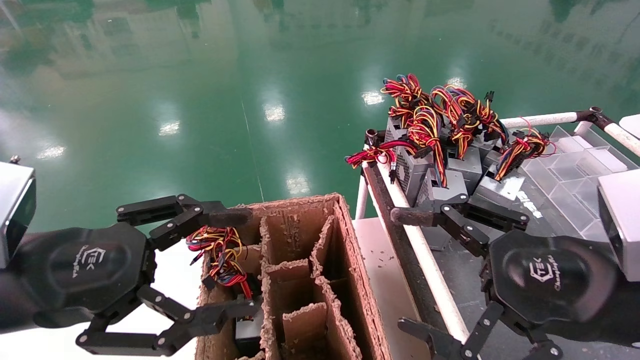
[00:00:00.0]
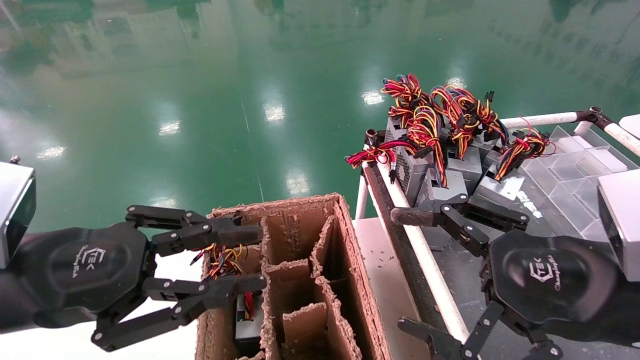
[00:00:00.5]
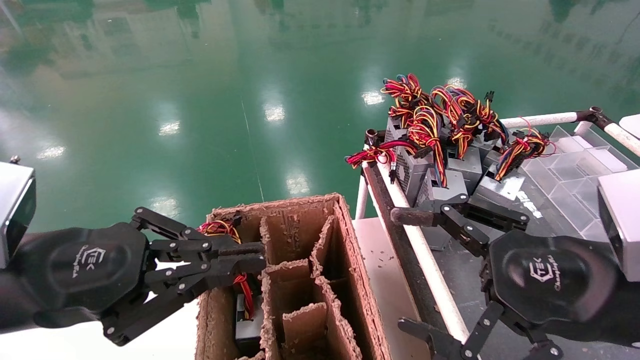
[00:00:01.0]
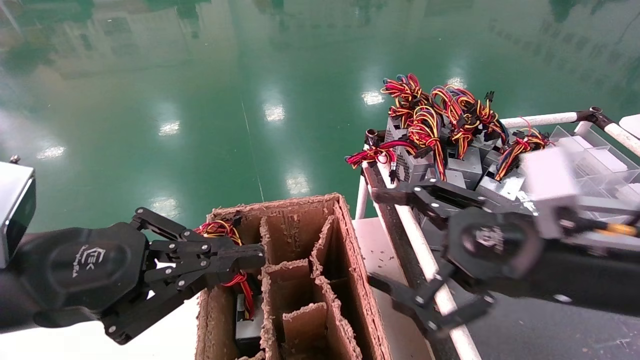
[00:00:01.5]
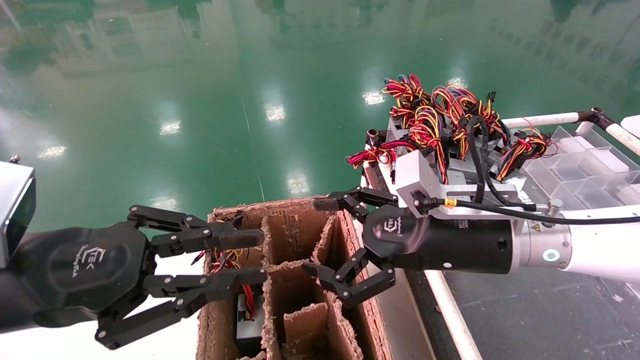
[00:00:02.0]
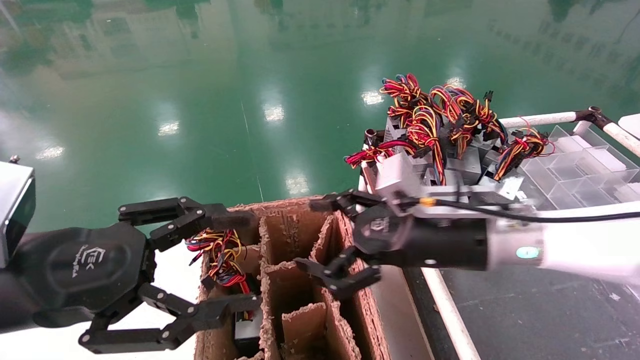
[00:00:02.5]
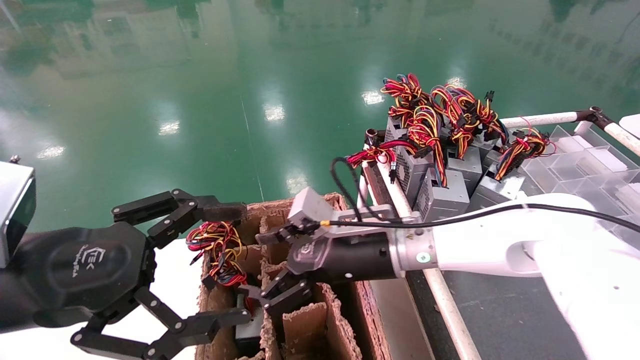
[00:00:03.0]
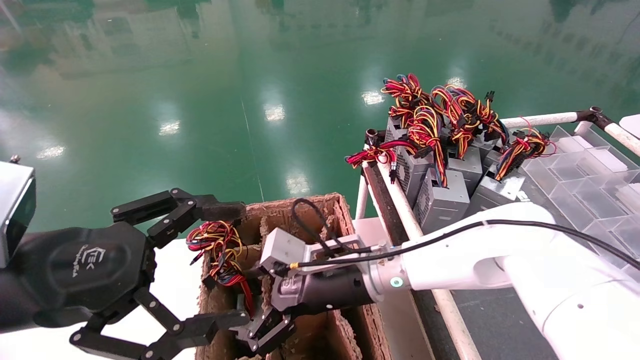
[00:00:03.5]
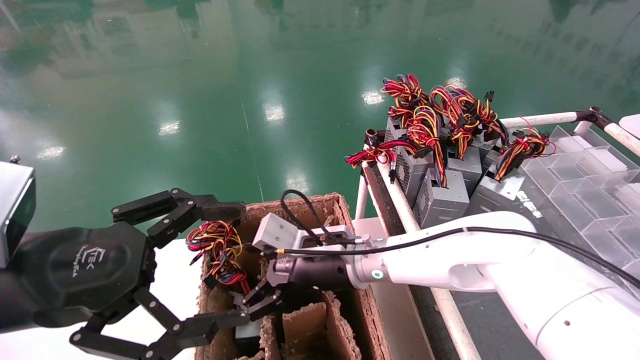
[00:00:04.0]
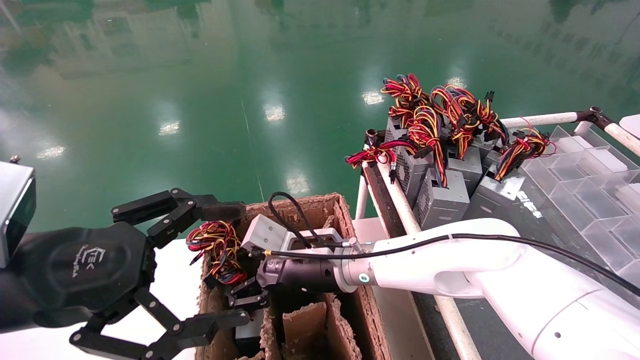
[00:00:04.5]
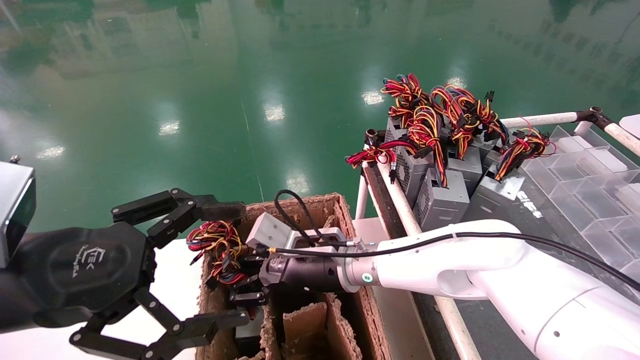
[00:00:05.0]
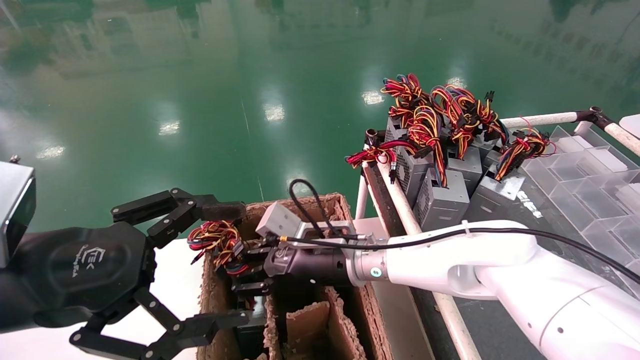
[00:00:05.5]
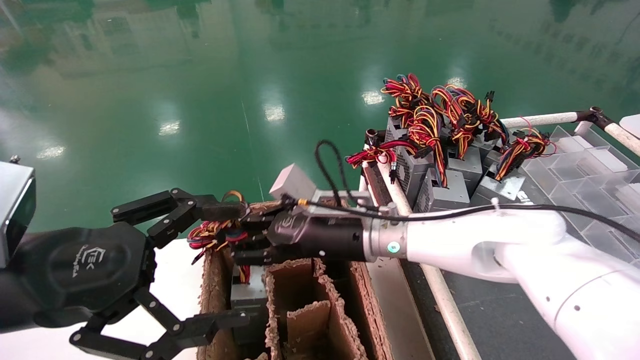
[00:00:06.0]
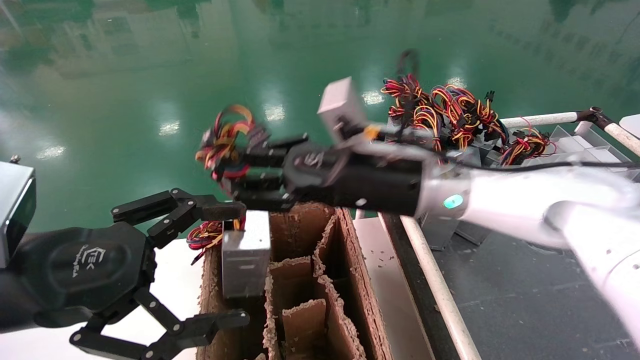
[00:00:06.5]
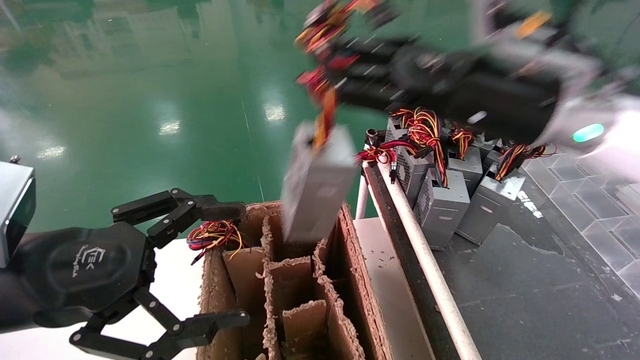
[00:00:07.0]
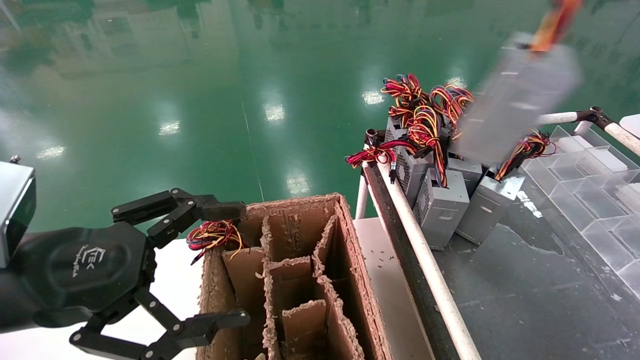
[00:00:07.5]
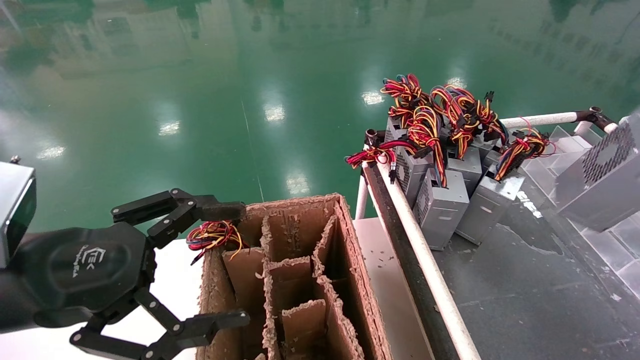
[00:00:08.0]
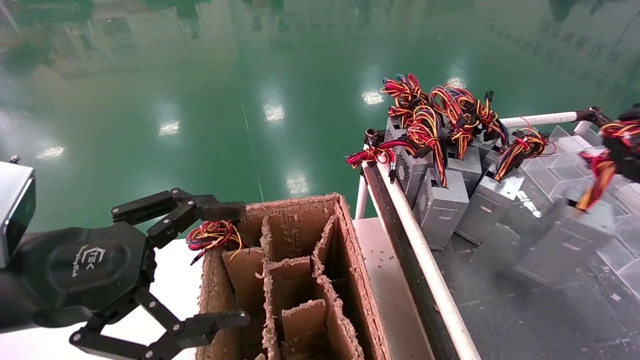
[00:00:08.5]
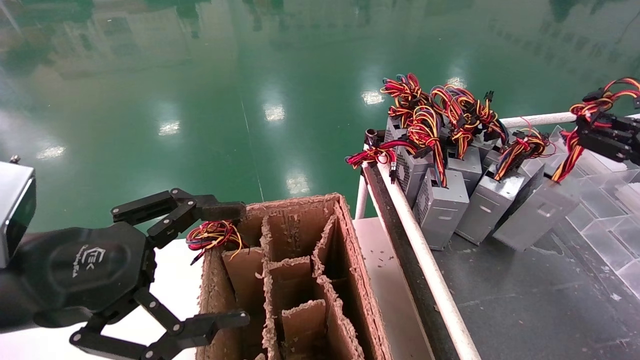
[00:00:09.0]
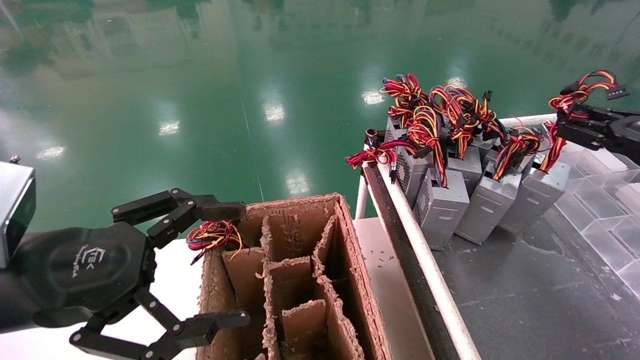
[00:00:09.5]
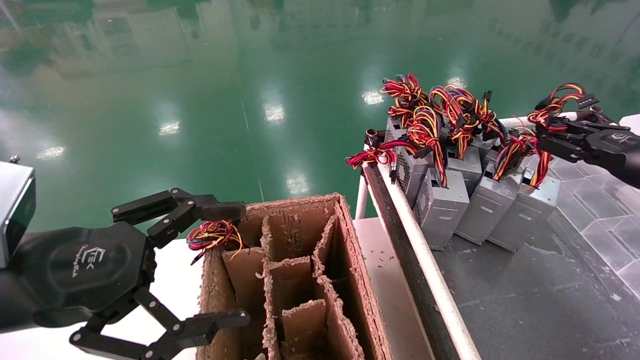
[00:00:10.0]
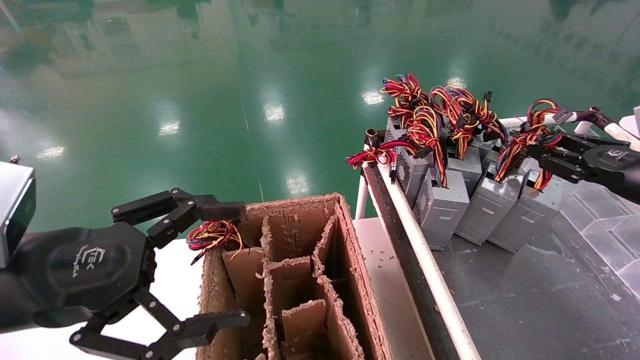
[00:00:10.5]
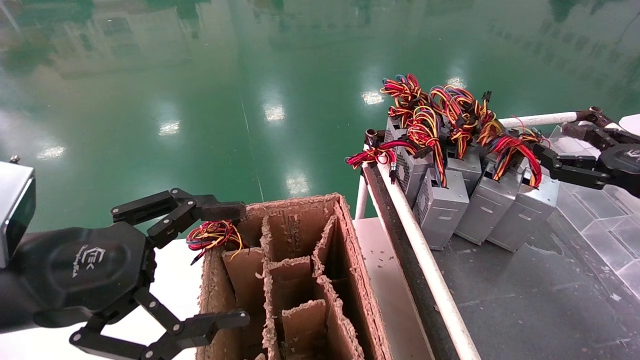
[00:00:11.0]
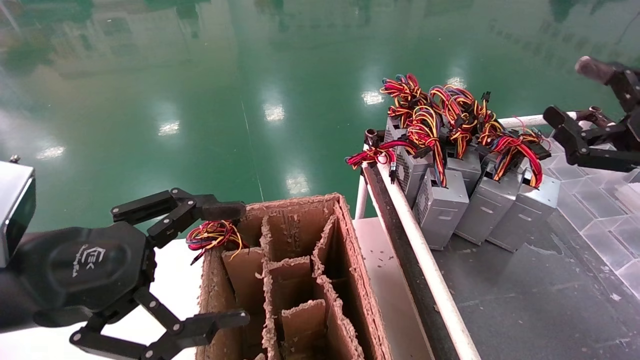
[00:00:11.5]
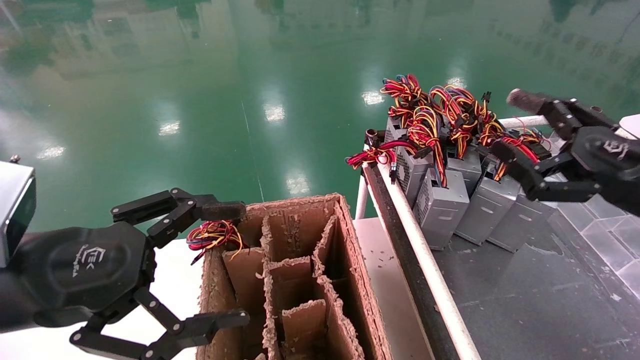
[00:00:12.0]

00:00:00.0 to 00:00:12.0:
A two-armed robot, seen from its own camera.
Step, 00:00:01.5 to 00:00:05.5: Grab and lift the power supply from the large box.
Step, 00:00:06.0 to 00:00:10.5: Place the power supply on the operating table.
00:00:00.0 to 00:00:02.0: The left gripper closes. The right gripper moves forward and to the left, some 15 cm.
00:00:02.0 to 00:00:04.0: The left gripper opens, while the right gripper shifts approximately 20 cm to the left, downward and forward.
00:00:04.0 to 00:00:06.0: The right gripper goes some 5 cm upward, and closes up.
00:00:06.0 to 00:00:08.0: The right gripper is displaced to the right by some 50 cm.
00:00:08.0 to 00:00:10.0: The right gripper goes roughly 15 cm forward and downward.
00:00:10.0 to 00:00:12.0: The right gripper goes roughly 10 cm to the left and backward, and opens.

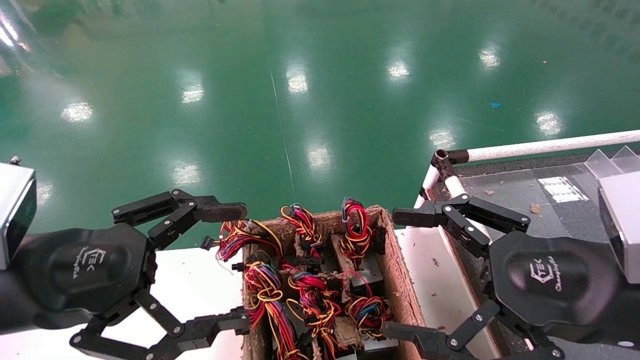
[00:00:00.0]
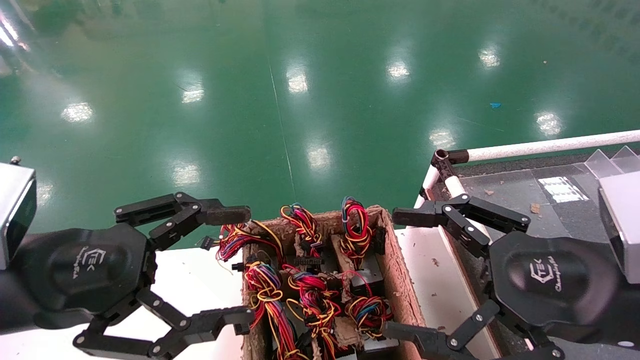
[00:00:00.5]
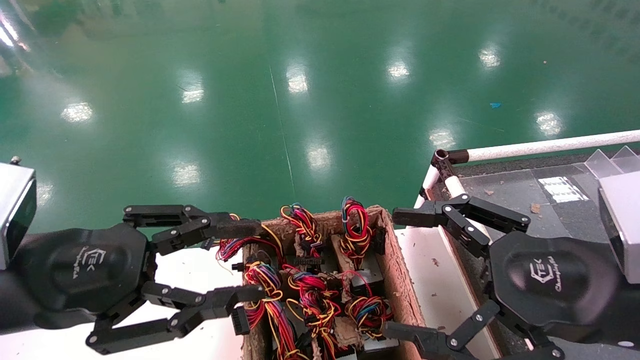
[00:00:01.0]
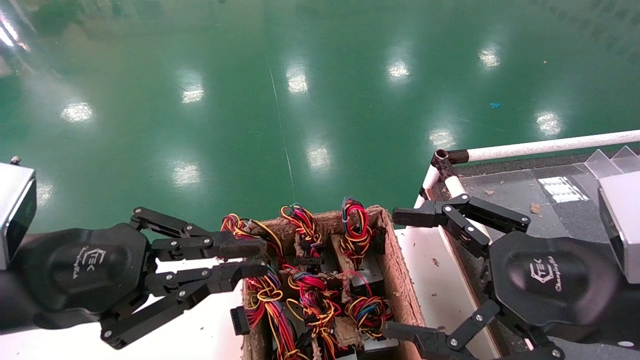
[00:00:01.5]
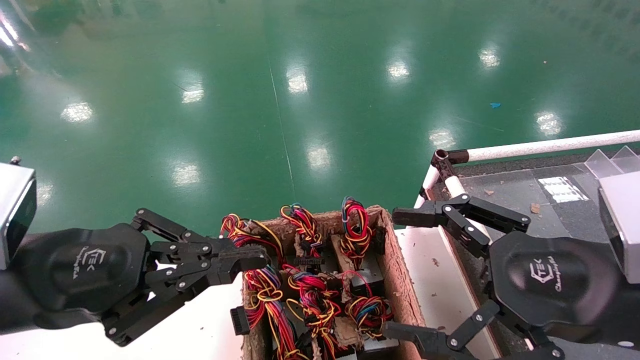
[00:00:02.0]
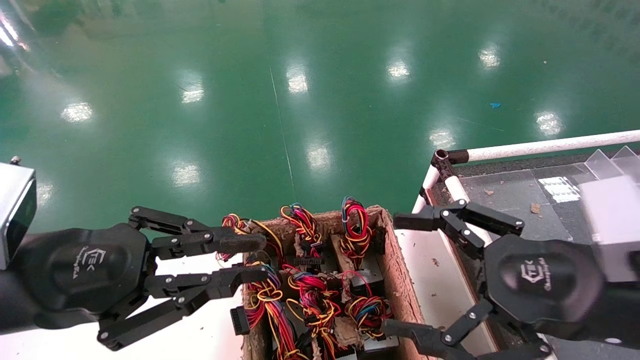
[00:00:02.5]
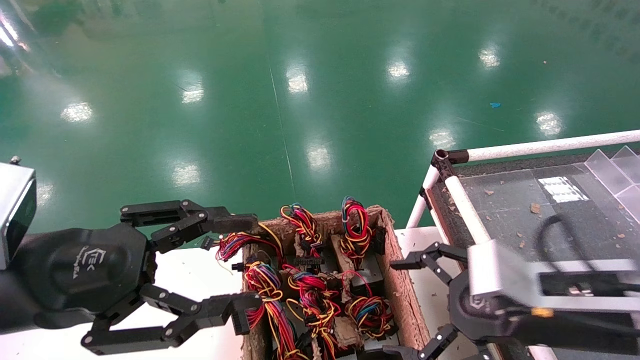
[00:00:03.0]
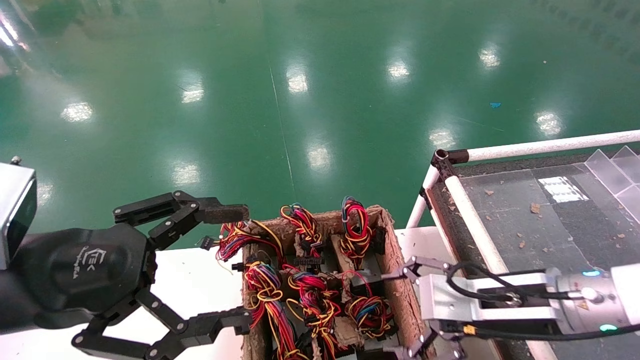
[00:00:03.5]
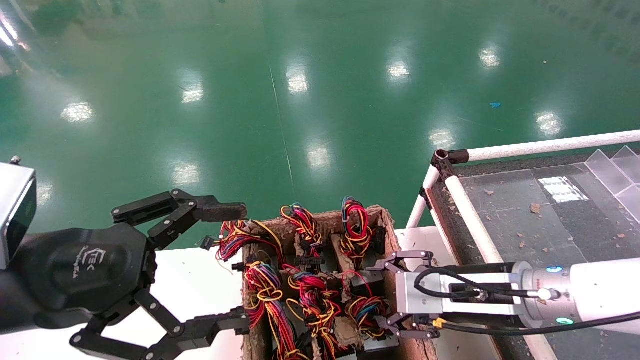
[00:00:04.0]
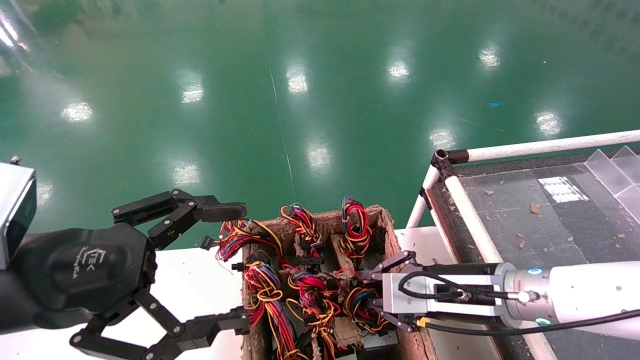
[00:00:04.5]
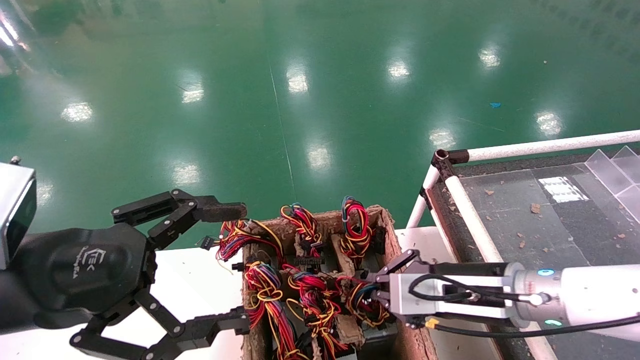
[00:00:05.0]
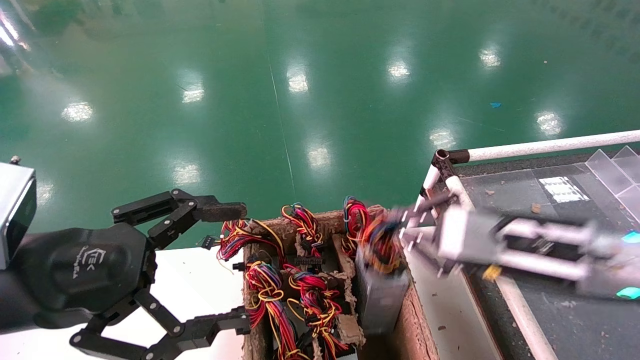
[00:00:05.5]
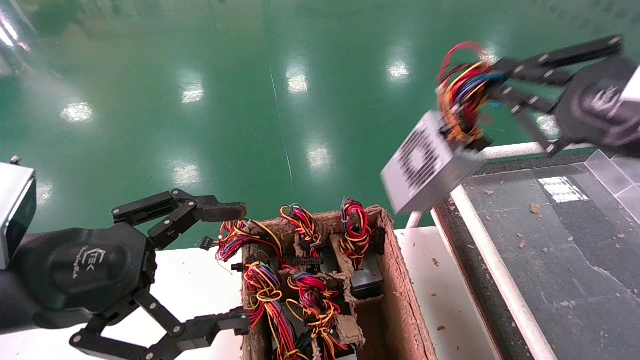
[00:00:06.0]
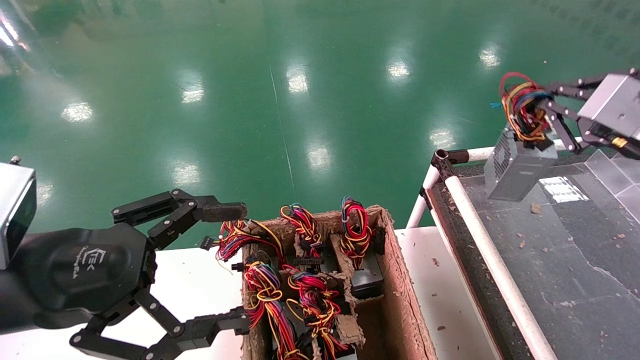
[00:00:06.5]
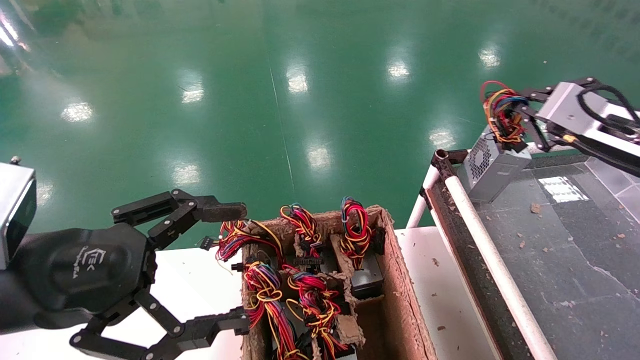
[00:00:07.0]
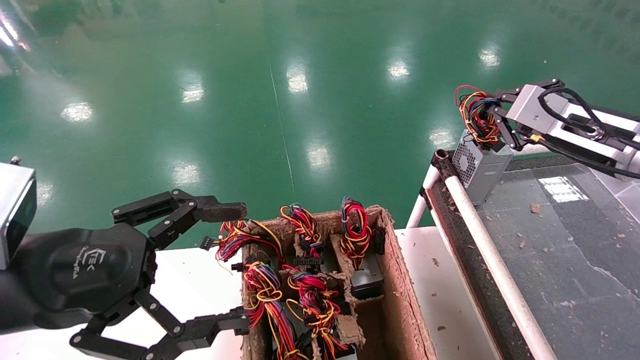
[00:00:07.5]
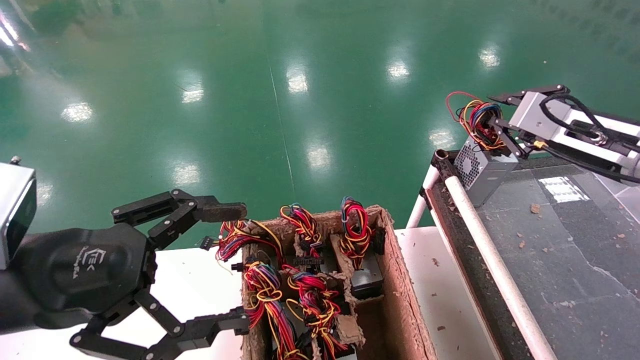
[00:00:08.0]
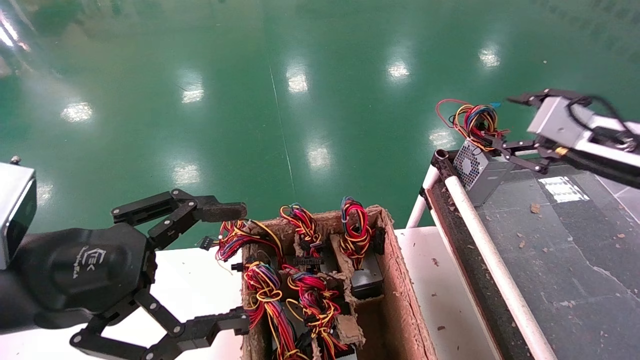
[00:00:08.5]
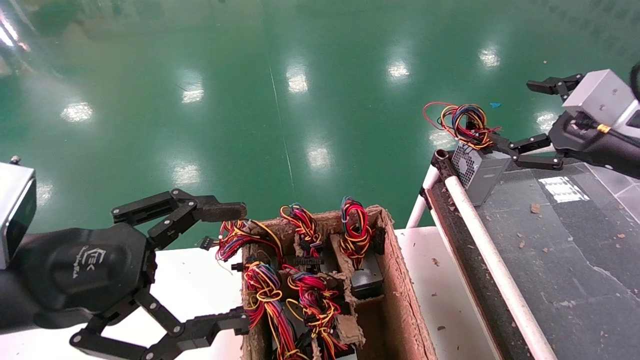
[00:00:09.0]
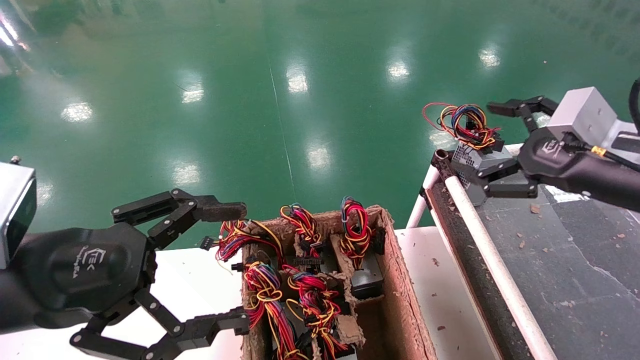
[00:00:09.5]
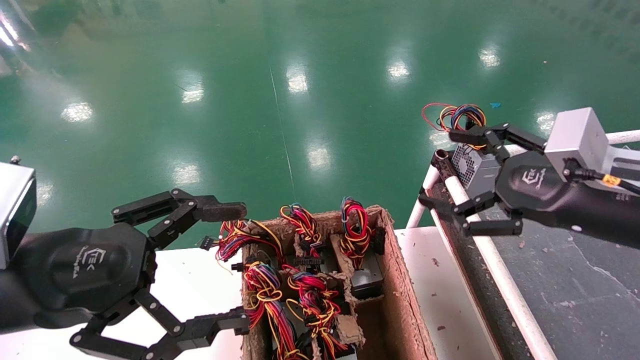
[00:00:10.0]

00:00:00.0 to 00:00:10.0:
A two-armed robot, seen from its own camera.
Step, 00:00:03.0 to 00:00:04.5: Grab and lift the power supply from the large box.
Step, 00:00:05.0 to 00:00:08.0: Place the power supply on the operating table.
00:00:00.0 to 00:00:02.0: The left gripper closes its fingers.
00:00:02.0 to 00:00:04.0: The left gripper opens its fingers; the right gripper shifts roughly 15 cm forward and downward.
00:00:04.0 to 00:00:06.0: The right gripper shifts some 20 cm upward and to the right, and closes up.
00:00:06.0 to 00:00:08.0: The right gripper goes roughly 10 cm forward.
00:00:08.0 to 00:00:10.0: The right gripper moves backward and to the left, roughly 10 cm, and opens up.
